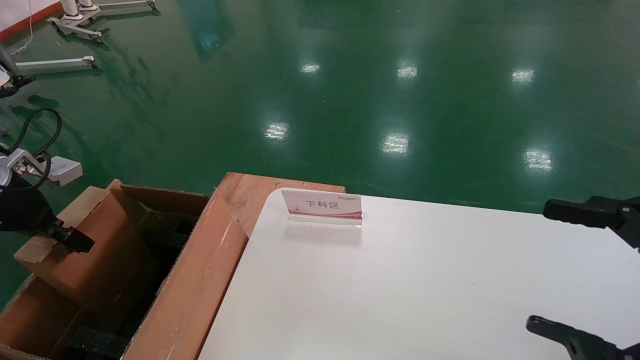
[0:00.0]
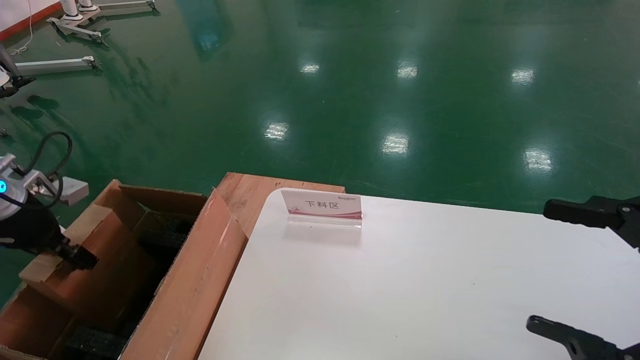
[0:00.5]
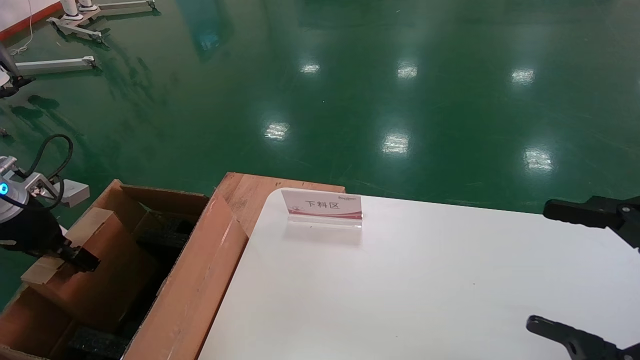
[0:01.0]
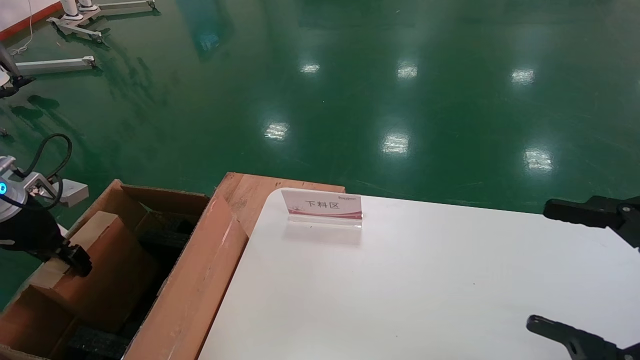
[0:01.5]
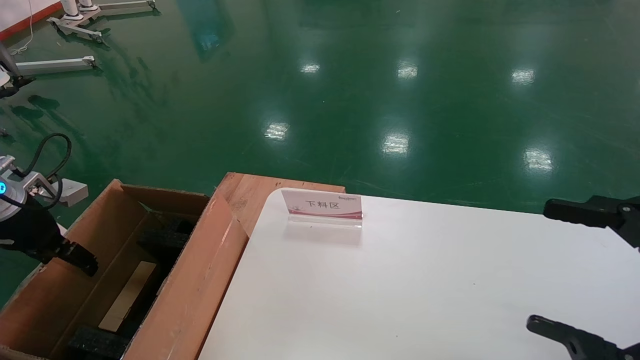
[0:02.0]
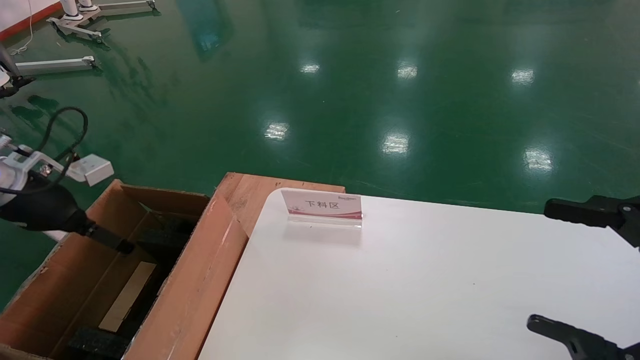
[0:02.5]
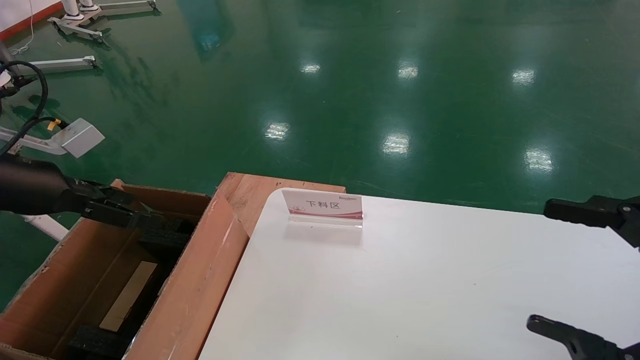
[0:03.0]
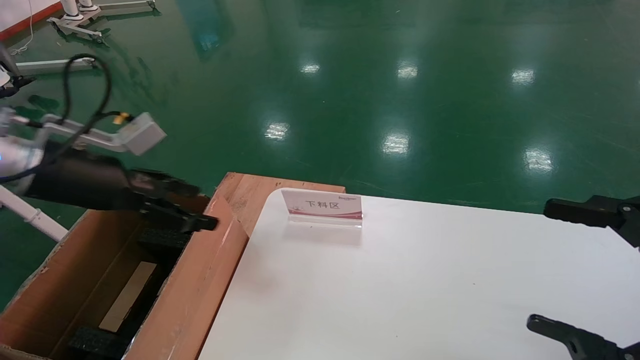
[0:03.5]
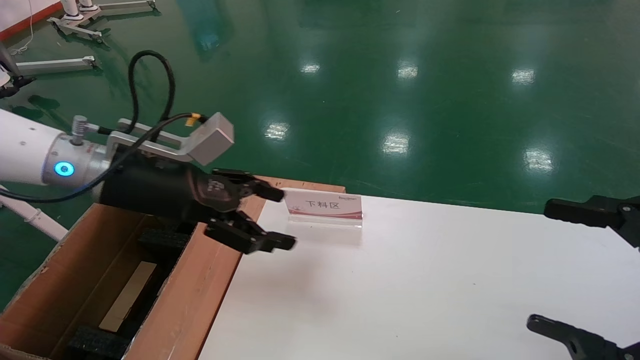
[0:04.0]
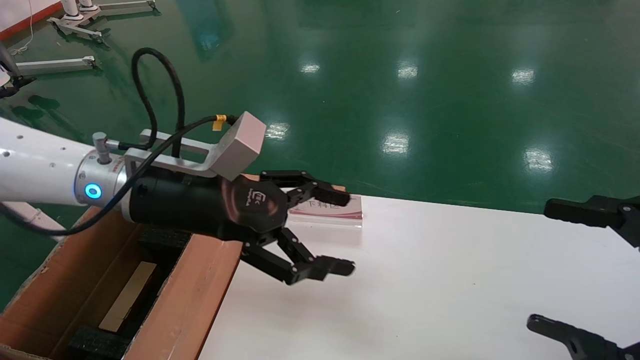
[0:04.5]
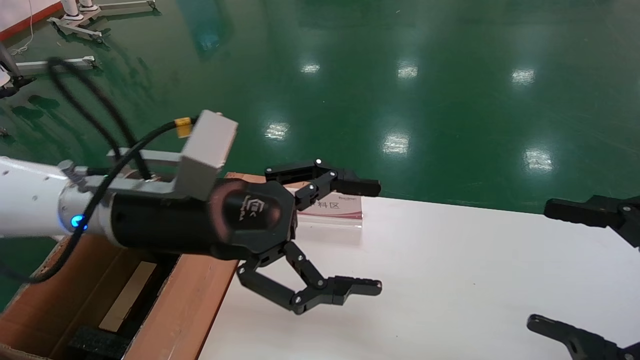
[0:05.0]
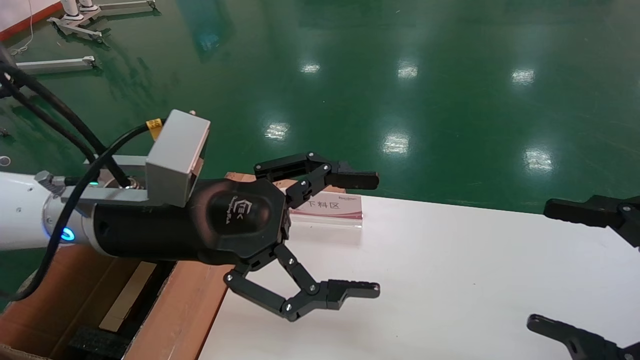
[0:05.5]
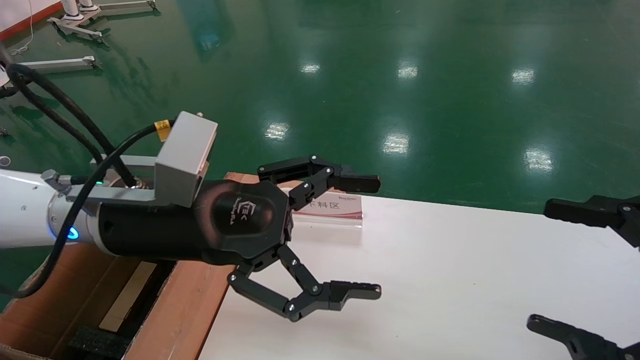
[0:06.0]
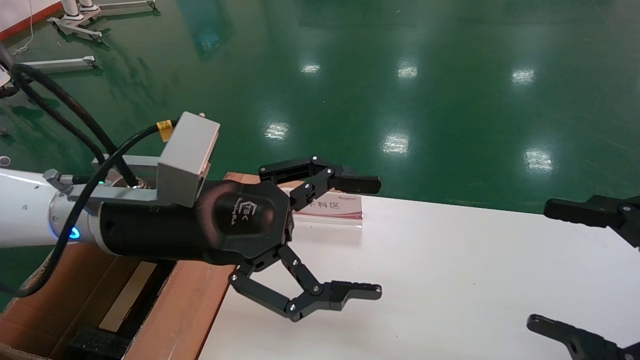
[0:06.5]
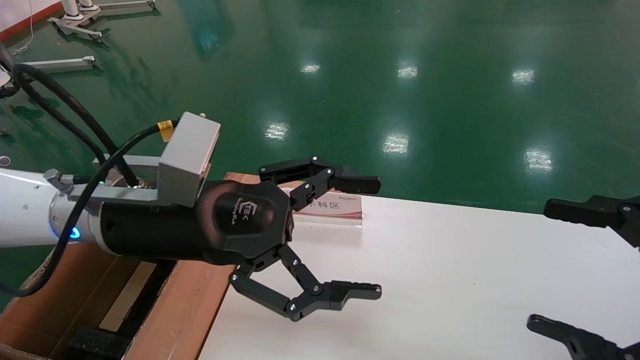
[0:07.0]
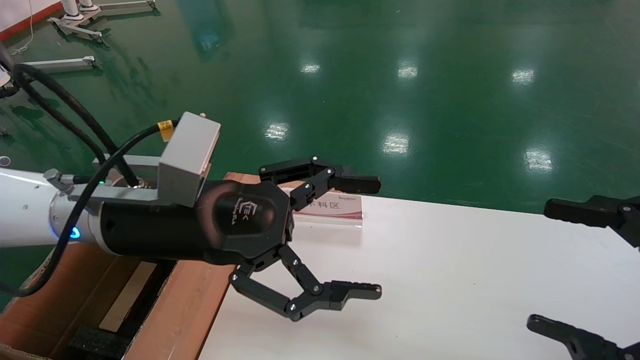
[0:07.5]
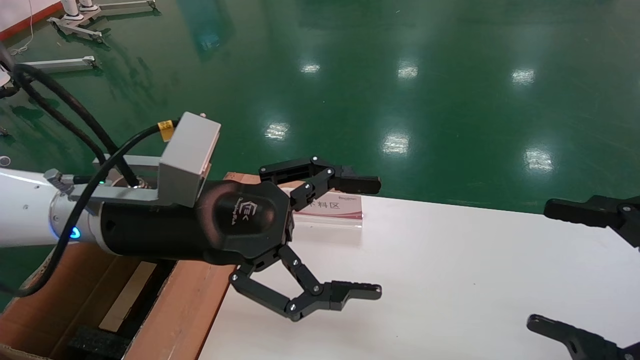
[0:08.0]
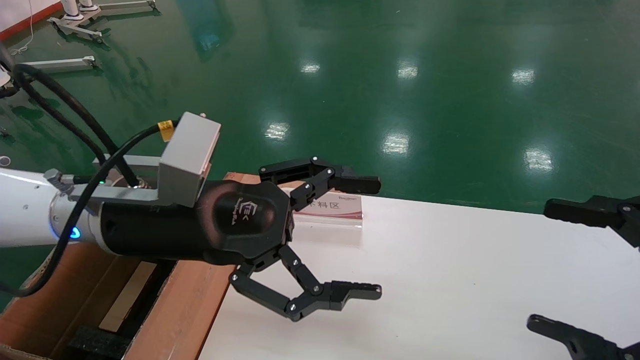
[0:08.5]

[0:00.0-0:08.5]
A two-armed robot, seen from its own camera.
Task of the whole recording: pick up the small cardboard box and load it into the large cardboard box.
Step, 0:00.0 to 0:02.0: Place the mouse and power cord box into the case.
0:00.0 to 0:02.0: The left gripper opens up.
0:02.0 to 0:04.0: The left gripper is displaced to the right by some 25 cm.
0:04.0 to 0:06.5: The left gripper is displaced to the right and backward by approximately 10 cm.
0:06.5 to 0:08.5: Both grippers stay about where they are.

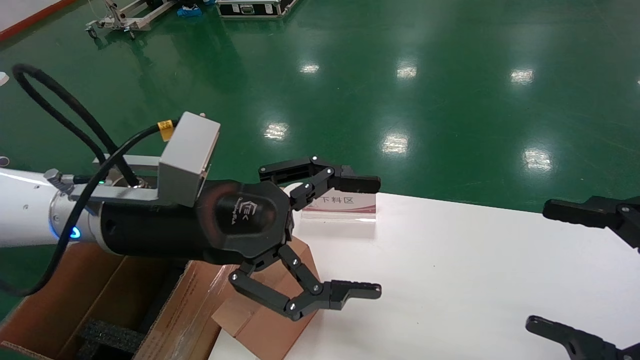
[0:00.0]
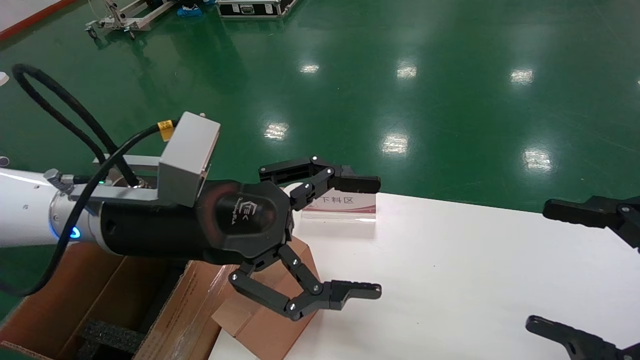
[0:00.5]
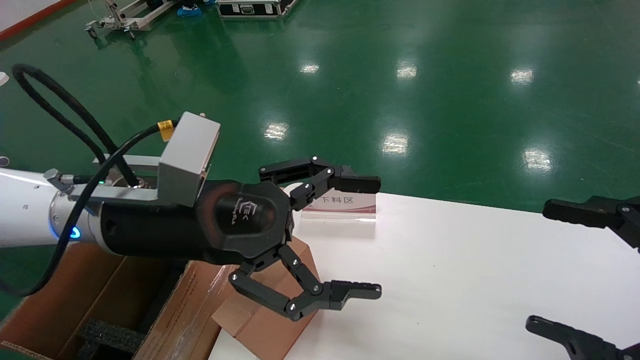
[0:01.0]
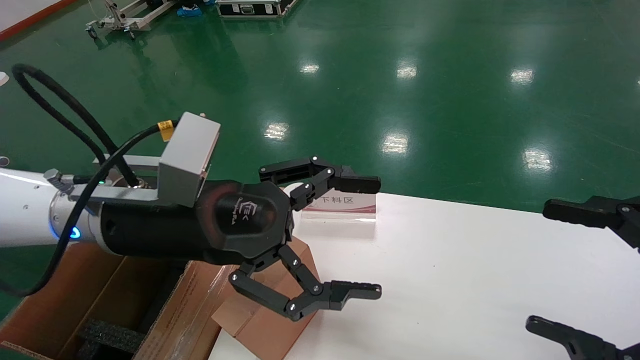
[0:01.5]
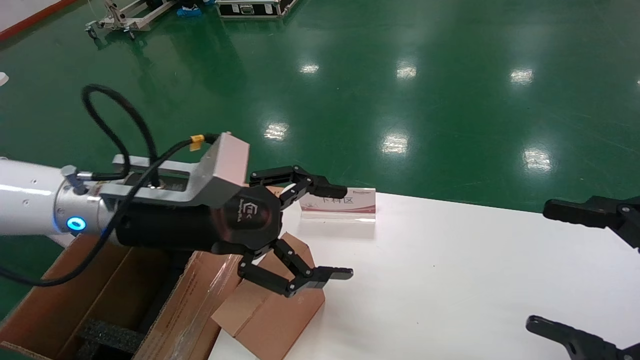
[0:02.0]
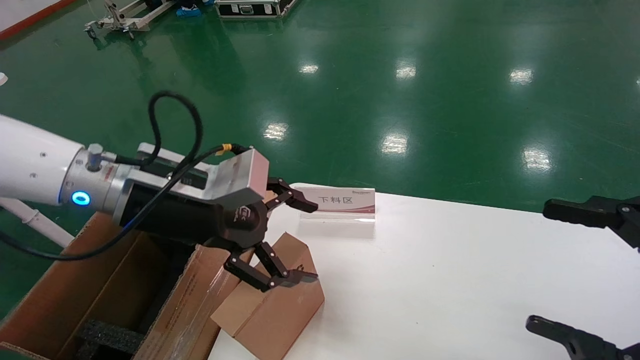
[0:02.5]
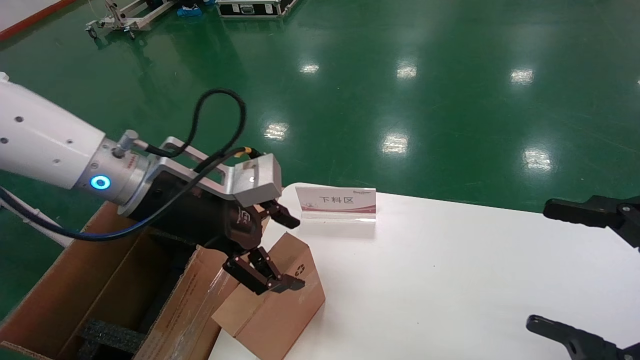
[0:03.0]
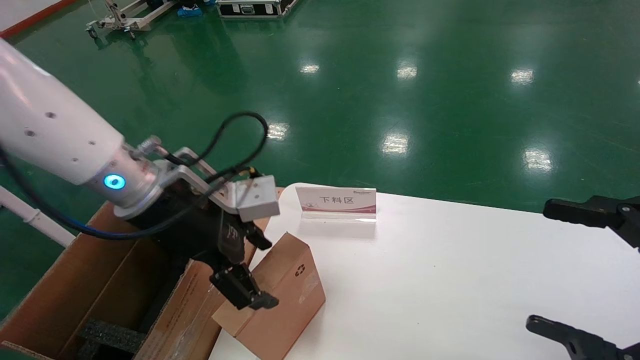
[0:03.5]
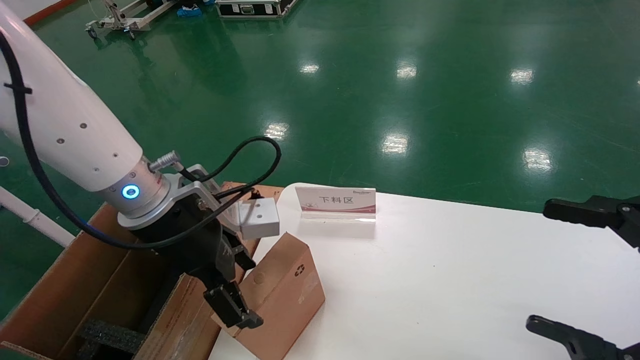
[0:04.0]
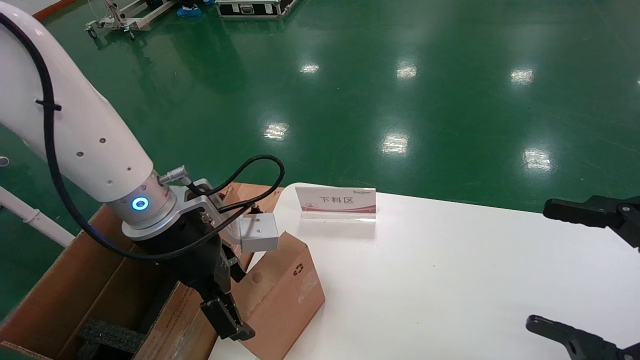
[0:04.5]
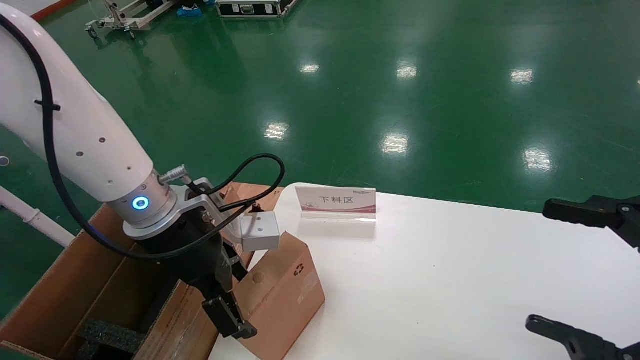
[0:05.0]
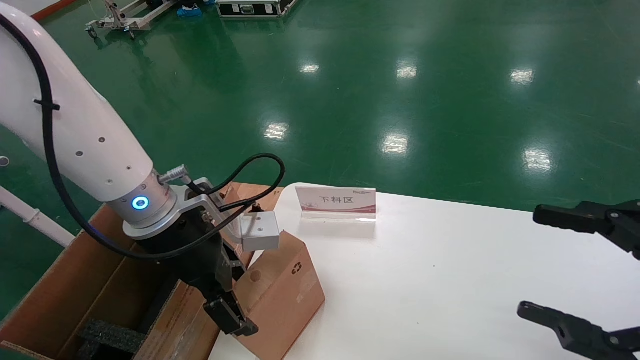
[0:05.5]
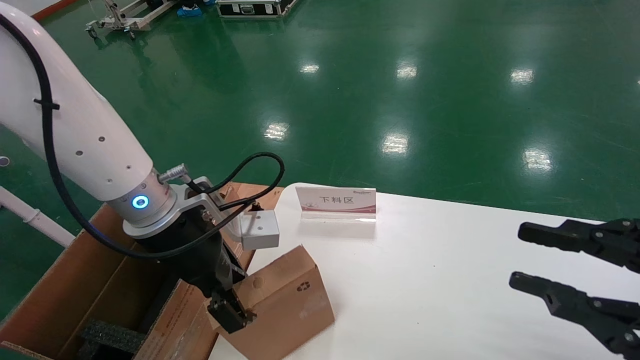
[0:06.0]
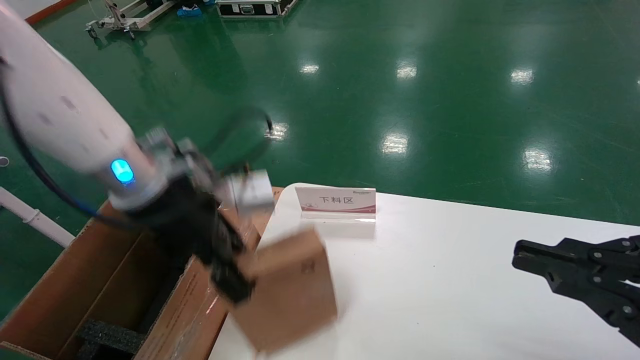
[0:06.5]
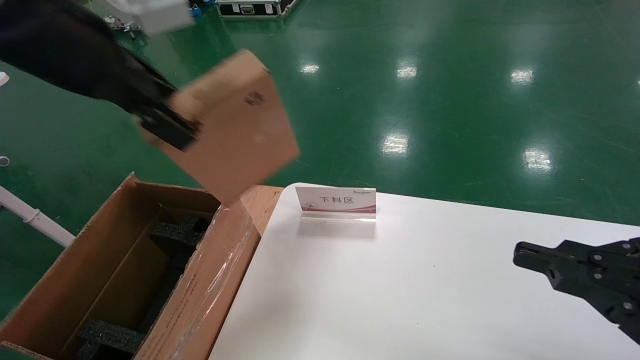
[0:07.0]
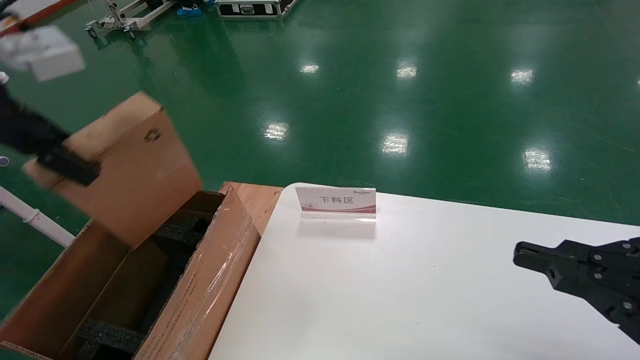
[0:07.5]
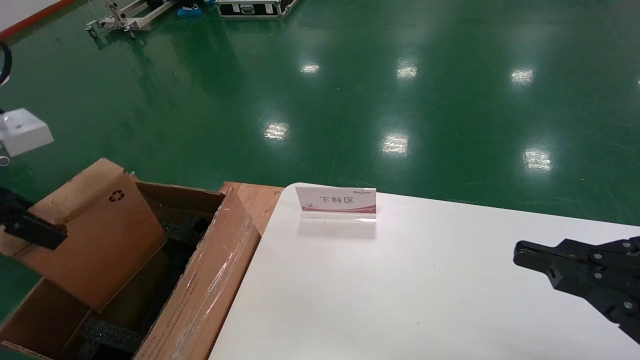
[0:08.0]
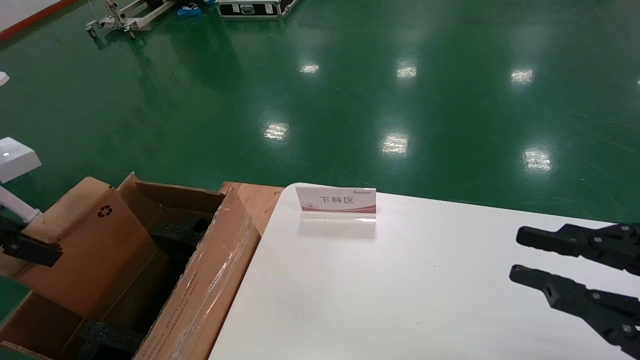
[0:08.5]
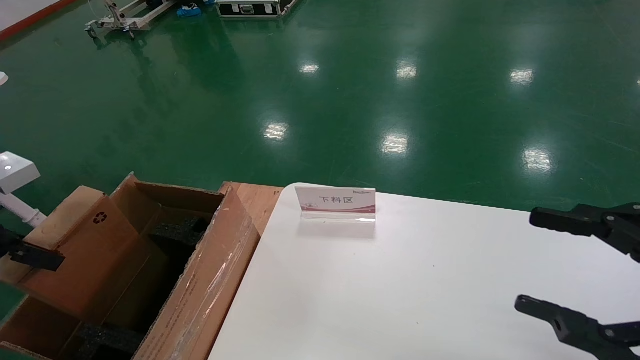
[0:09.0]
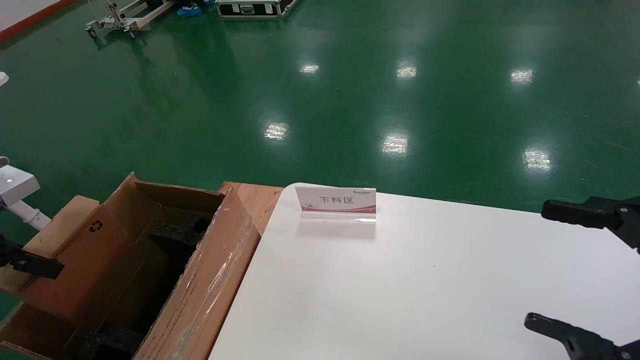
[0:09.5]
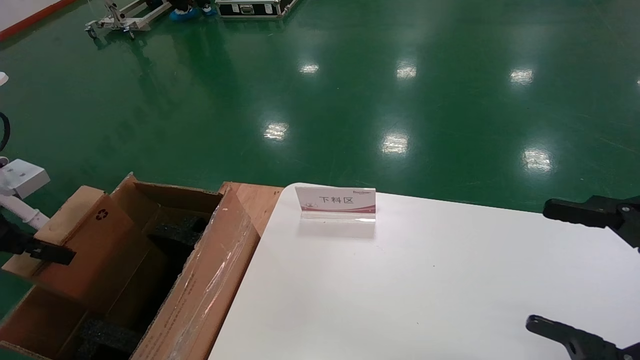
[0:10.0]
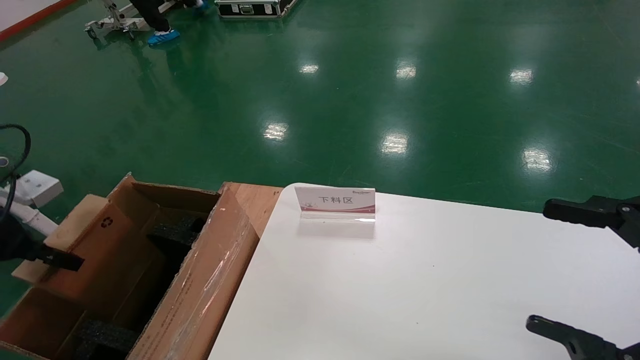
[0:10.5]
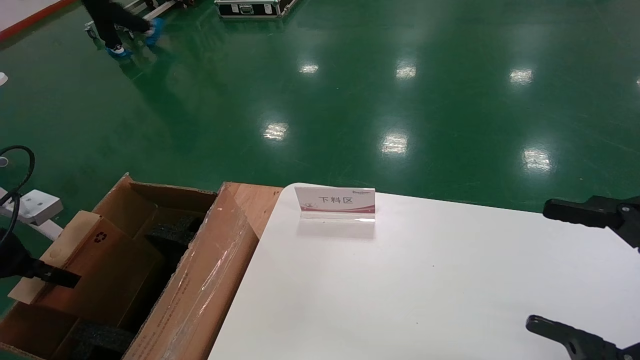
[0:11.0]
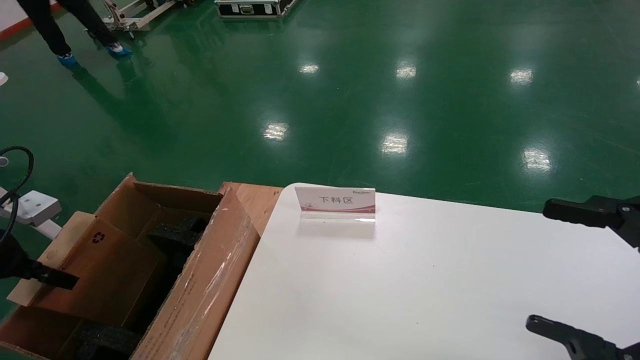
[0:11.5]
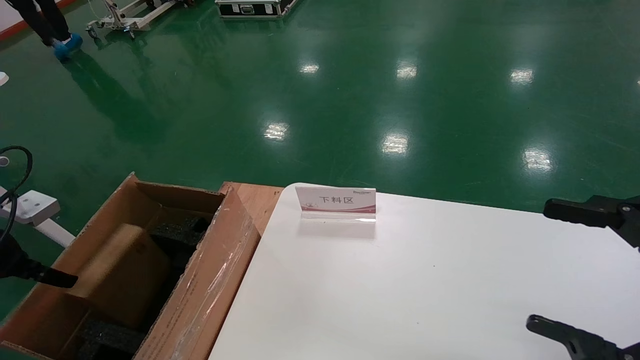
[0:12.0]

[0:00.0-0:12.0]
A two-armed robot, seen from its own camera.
Task of the whole recording: pick up the small cardboard box and load it into the large cardboard box.
Step, 0:02.0 to 0:06.5: Pick up the mouse and power cord box.
0:00.0 to 0:02.0: The grippers move only a little.
0:04.0 to 0:06.0: The right gripper closes up, while the left gripper closes up.
0:06.0 to 0:08.0: The right gripper closes, while the left gripper is displaced to the left, backward and upward by approximately 25 cm, and closes.
0:08.0 to 0:10.0: The right gripper opens its fingers. Meanwhile the left gripper heads downward and to the left, covering approximately 15 cm.
0:10.0 to 0:12.0: The left gripper changes place by some 5 cm, and opens its fingers.
